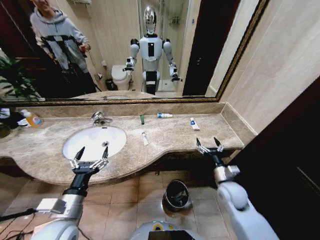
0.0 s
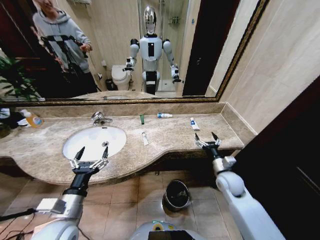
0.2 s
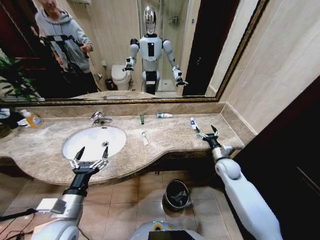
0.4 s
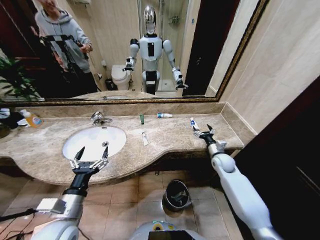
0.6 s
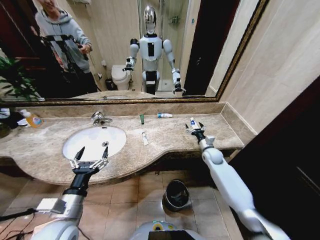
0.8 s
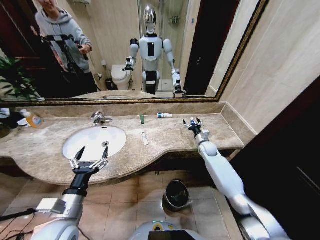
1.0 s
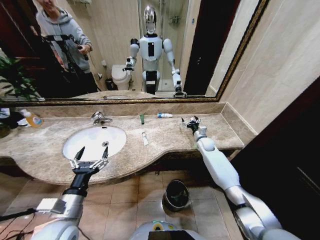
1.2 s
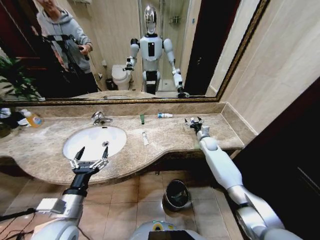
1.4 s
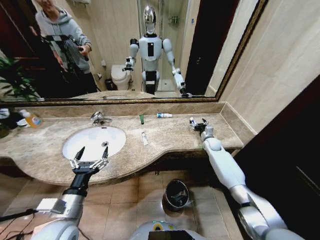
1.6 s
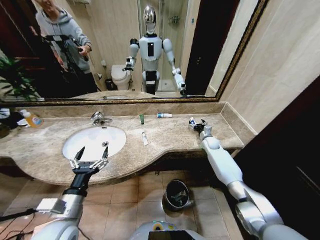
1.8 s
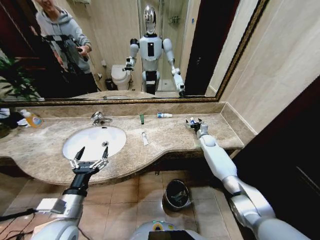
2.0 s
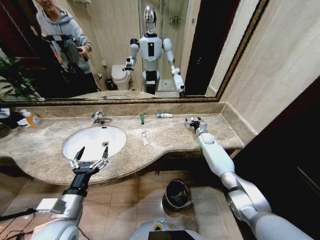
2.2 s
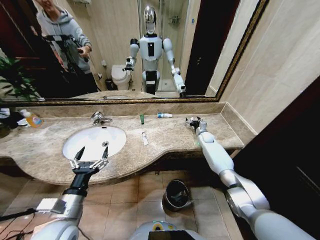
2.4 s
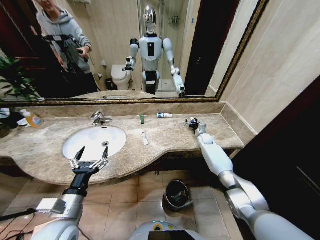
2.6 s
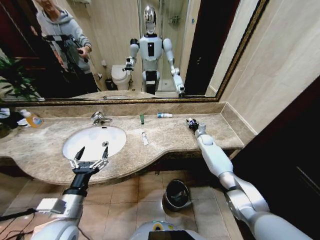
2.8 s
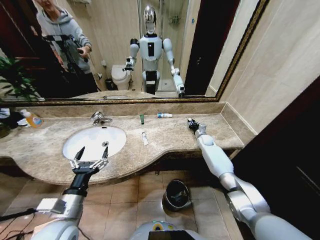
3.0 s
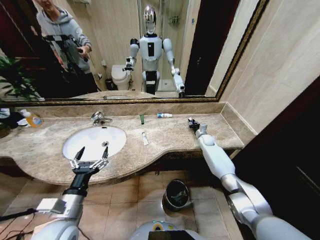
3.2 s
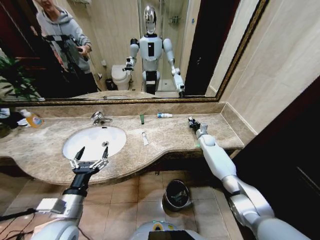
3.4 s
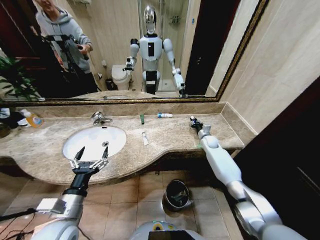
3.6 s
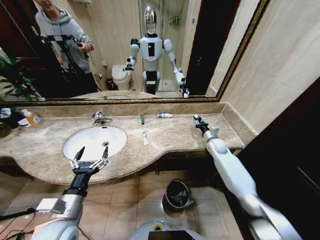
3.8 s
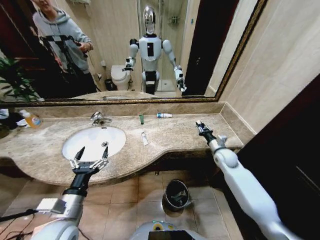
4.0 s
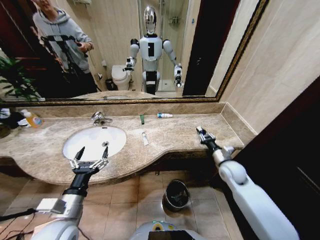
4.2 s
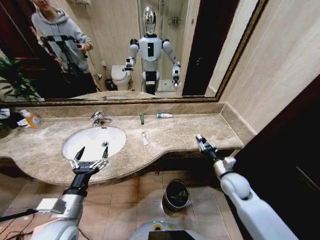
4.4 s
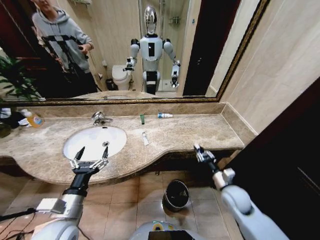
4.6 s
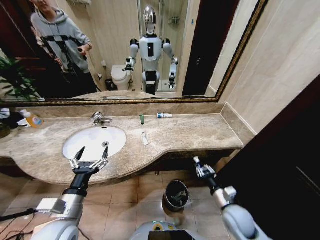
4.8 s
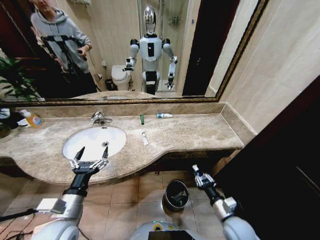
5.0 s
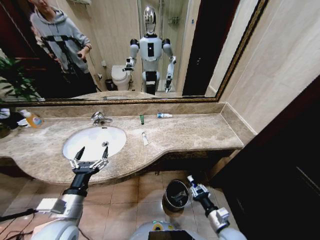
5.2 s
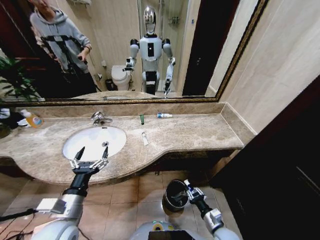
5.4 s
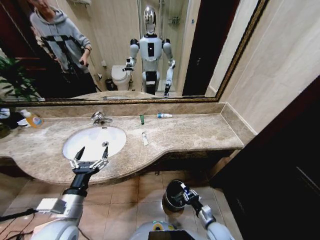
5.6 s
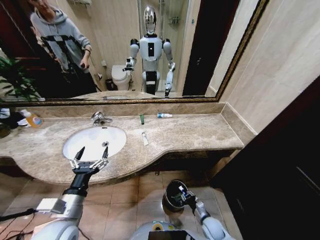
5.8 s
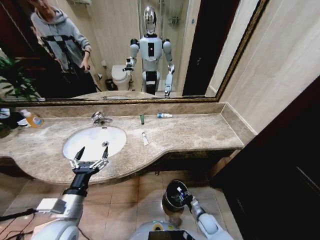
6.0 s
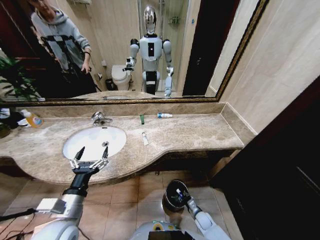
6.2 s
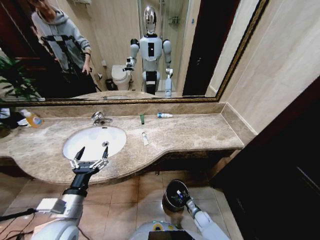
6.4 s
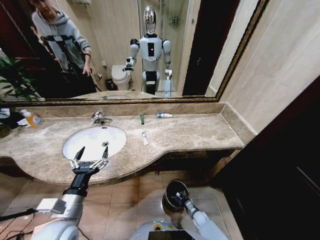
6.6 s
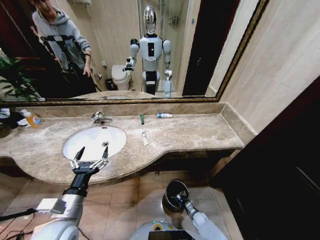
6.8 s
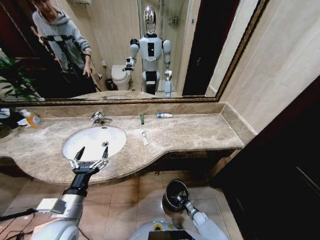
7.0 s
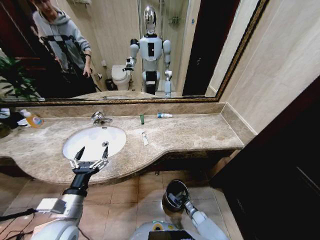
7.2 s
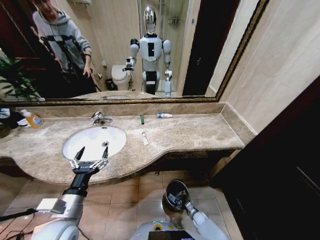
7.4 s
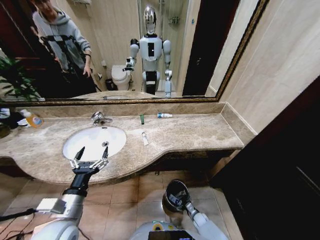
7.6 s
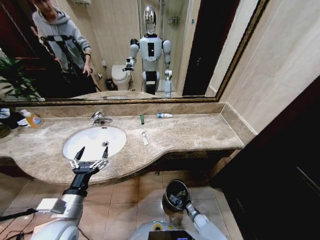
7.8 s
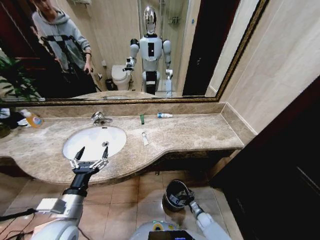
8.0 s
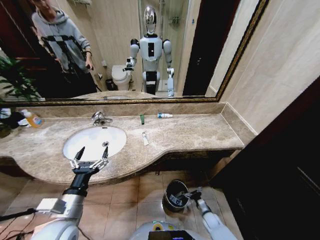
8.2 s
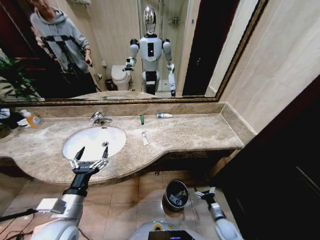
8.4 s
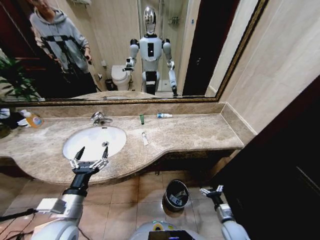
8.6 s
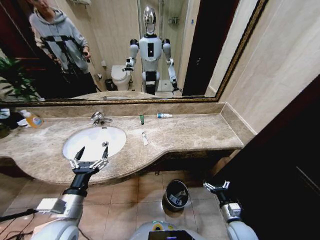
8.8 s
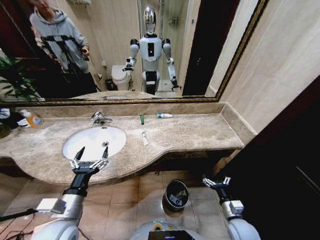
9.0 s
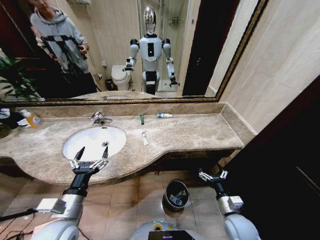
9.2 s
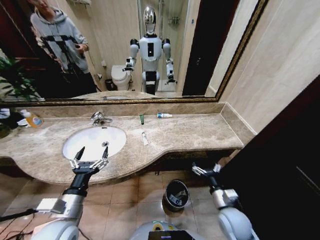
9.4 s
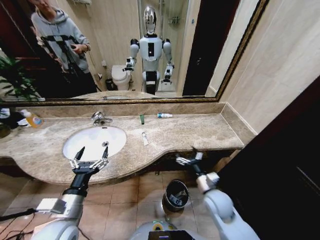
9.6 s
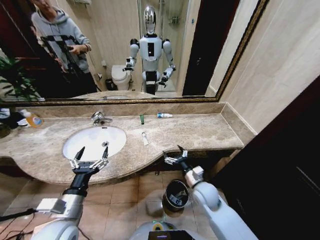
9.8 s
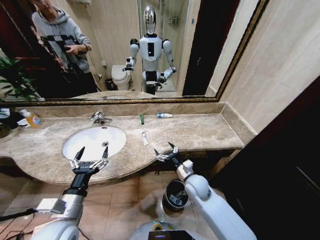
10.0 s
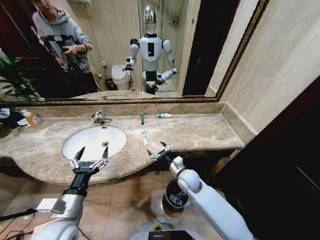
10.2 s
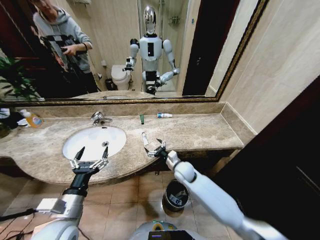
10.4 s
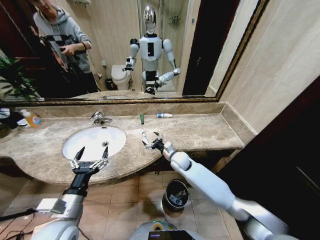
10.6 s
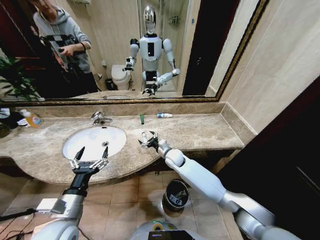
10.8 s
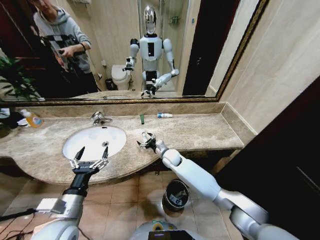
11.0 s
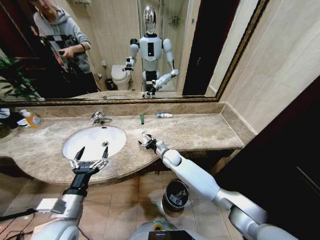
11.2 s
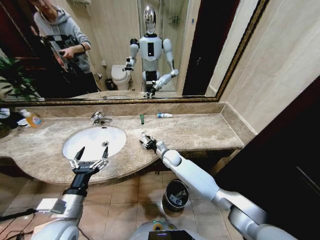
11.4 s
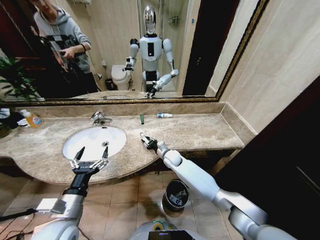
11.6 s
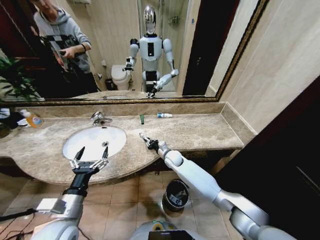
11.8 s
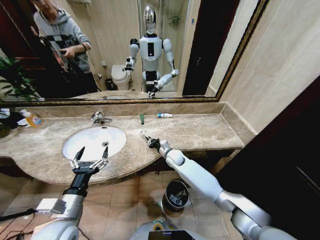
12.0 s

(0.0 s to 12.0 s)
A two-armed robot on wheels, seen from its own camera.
Task of the whole recording: Pick up the trash from the sink and place it in the trash bin.
0.0 s - 1.6 s: The right gripper shifts roughly 30 cm forward.
1.6 s - 3.0 s: The right gripper changes place by about 5 cm, and closes up.
3.0 s - 4.4 s: The right gripper moves backward, some 30 cm.
4.4 s - 6.0 s: The right gripper shifts roughly 25 cm downward.
6.0 s - 7.6 s: The right gripper goes roughly 10 cm downward, and opens.
7.6 s - 9.0 s: The right gripper goes about 30 cm upward.
9.0 s - 10.4 s: The right gripper is displaced forward and to the left by about 30 cm.
10.4 s - 12.0 s: The right gripper shifts approximately 10 cm forward, and closes.

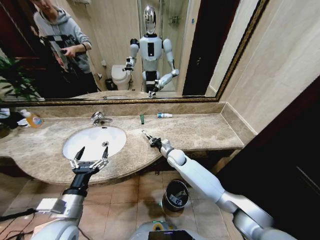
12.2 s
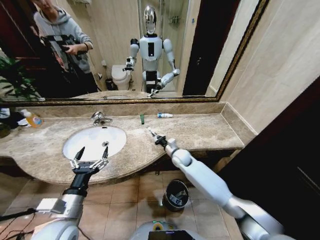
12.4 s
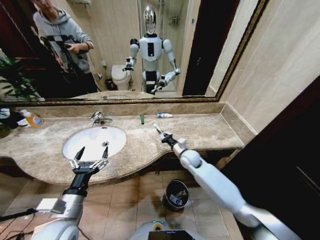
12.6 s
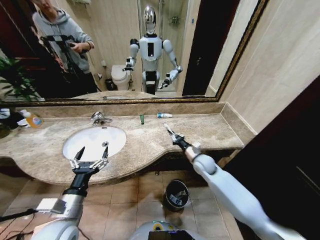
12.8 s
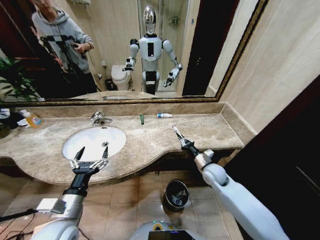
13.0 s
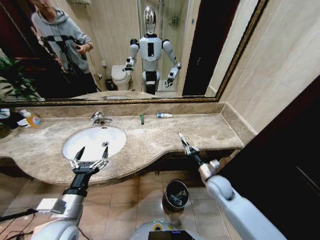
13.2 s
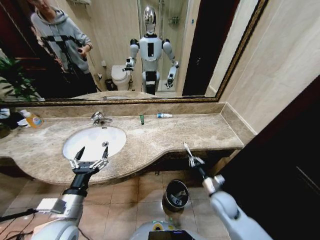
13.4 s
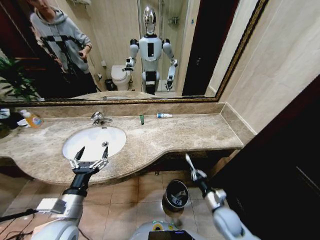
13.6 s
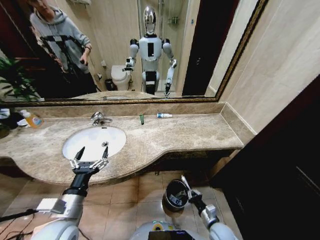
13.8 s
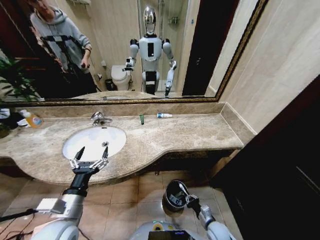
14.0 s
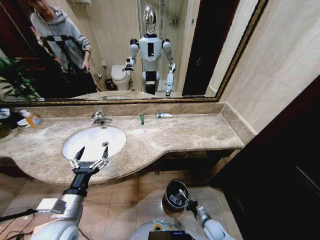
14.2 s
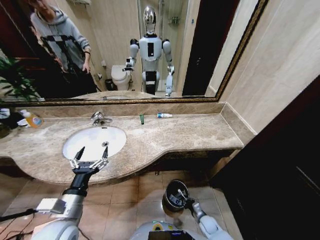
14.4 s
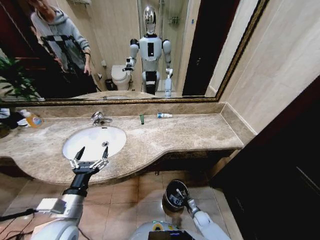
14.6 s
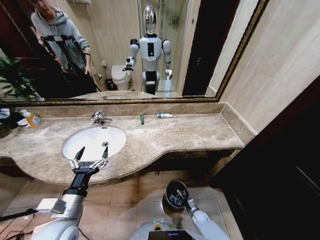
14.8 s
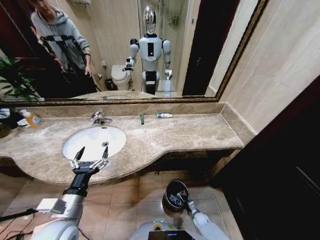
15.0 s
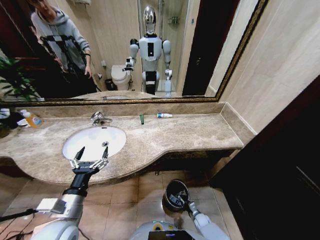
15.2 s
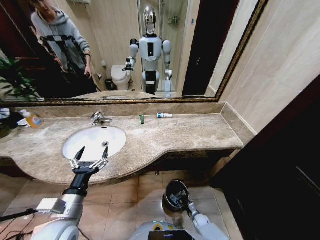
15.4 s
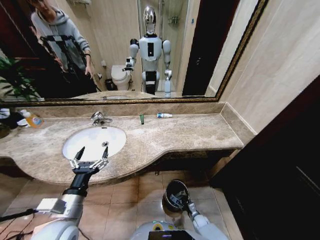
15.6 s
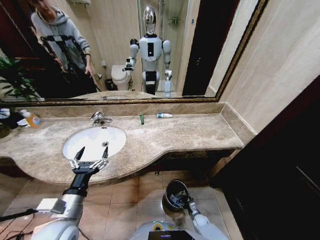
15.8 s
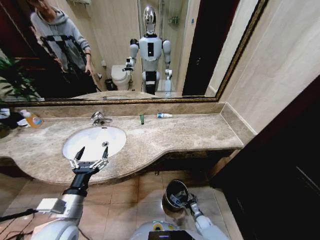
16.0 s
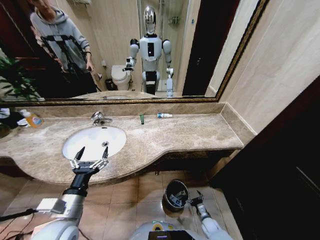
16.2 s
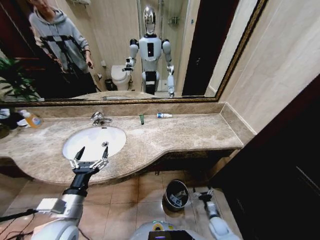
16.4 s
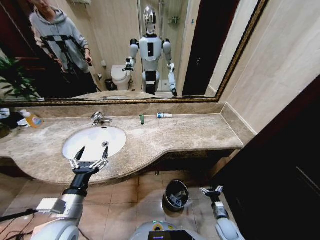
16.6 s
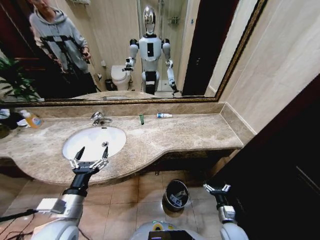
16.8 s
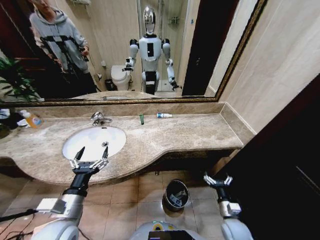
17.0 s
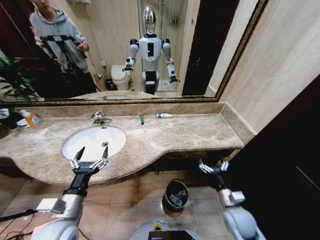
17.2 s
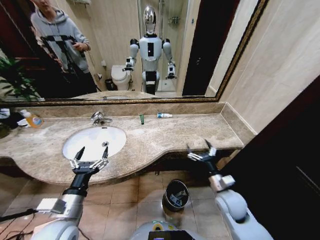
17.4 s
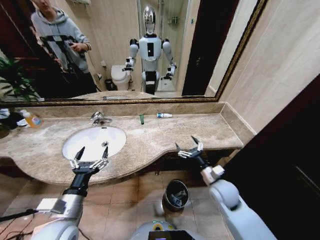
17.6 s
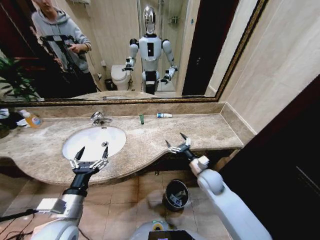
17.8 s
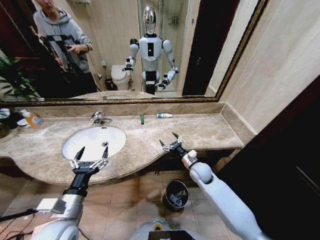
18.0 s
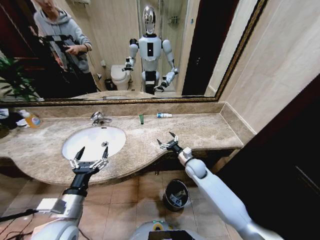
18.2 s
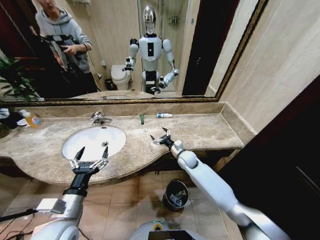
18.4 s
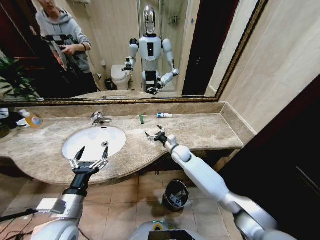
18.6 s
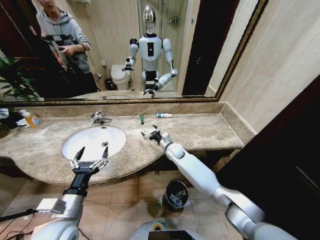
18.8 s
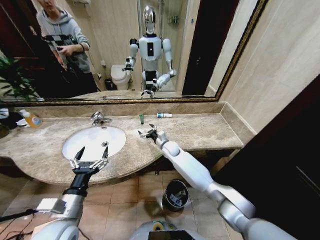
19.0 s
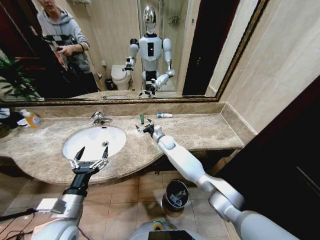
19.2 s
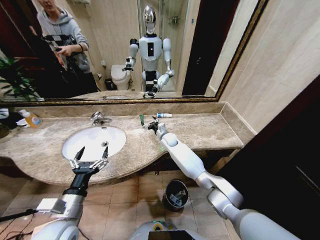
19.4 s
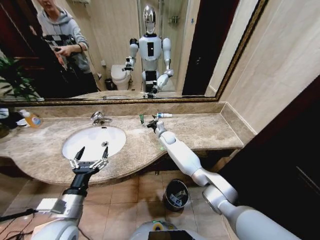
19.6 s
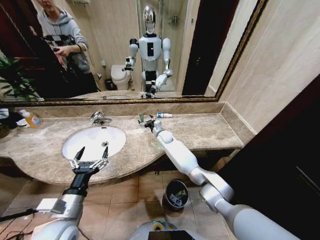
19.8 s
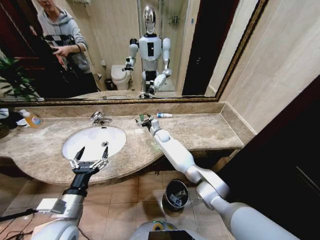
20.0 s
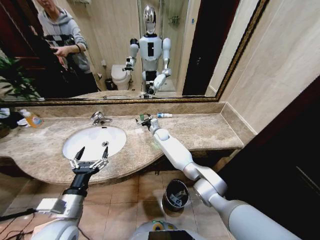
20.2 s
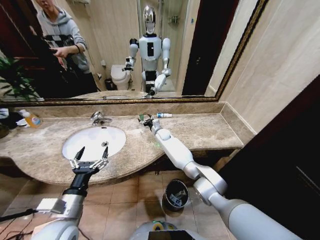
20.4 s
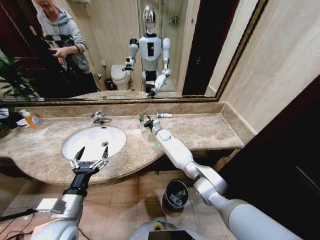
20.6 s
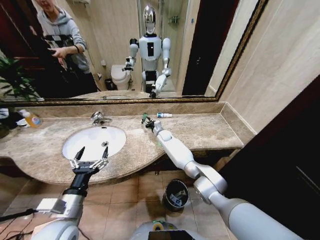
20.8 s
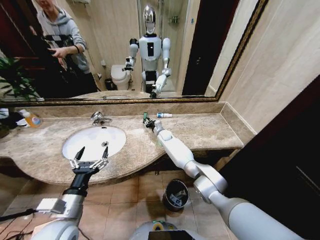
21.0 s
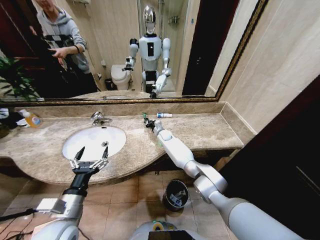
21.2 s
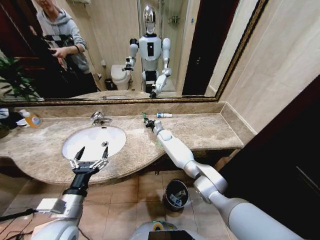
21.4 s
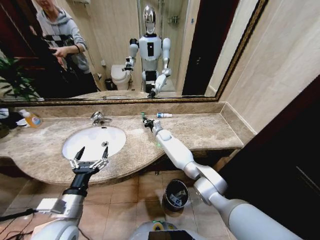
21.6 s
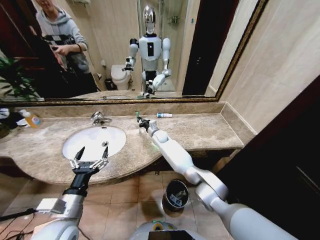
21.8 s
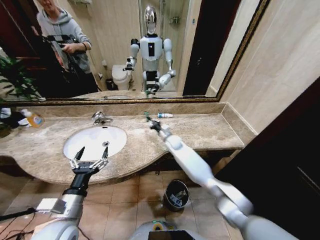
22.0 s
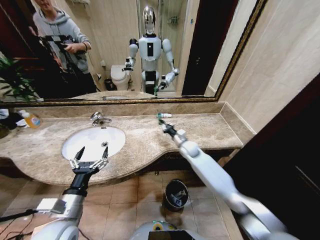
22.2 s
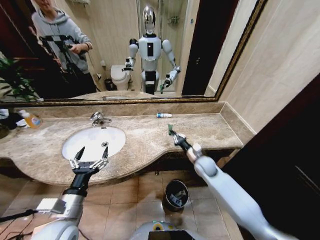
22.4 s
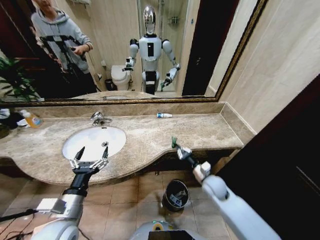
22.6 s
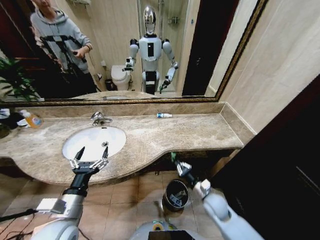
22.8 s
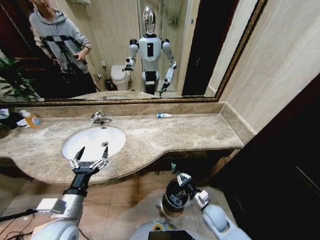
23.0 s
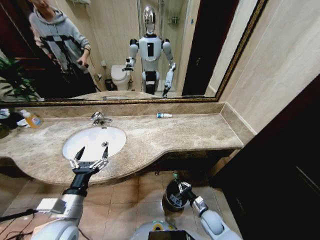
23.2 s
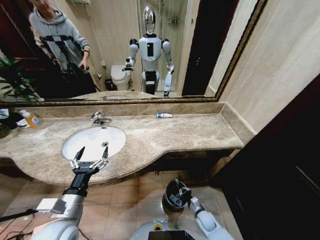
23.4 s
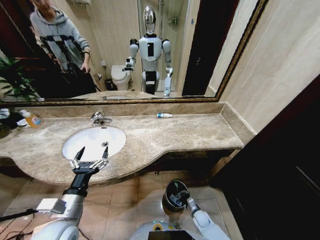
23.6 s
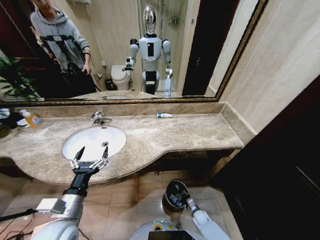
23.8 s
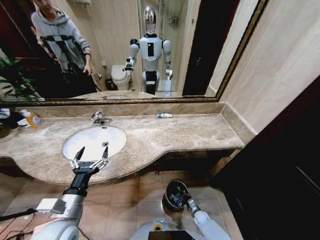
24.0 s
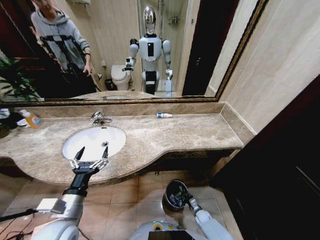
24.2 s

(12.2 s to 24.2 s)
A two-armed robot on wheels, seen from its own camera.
Task of the whole recording: Pick up the trash from the sink and place it in the trash bin.
12.2 s - 13.8 s: The right gripper travels backward, to the right and downward by approximately 40 cm.
13.8 s - 15.2 s: The right gripper travels downward by some 20 cm.
15.2 s - 16.6 s: The right gripper moves upward and to the right, about 15 cm, and opens up.
16.6 s - 18.2 s: The right gripper goes some 35 cm forward, upward and to the left.
18.2 s - 19.8 s: The right gripper heads forward and to the left, covering roughly 25 cm.
19.8 s - 21.2 s: The right gripper closes up.
21.2 s - 22.6 s: The right gripper heads backward and to the right, covering roughly 35 cm.
22.6 s - 24.2 s: The right gripper moves downward, approximately 35 cm.
